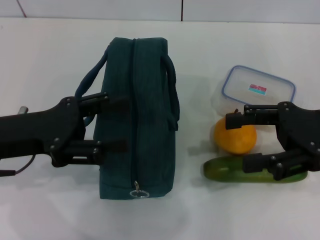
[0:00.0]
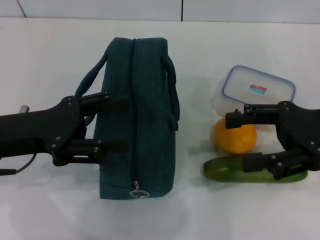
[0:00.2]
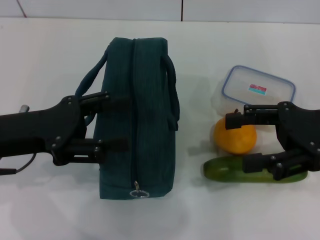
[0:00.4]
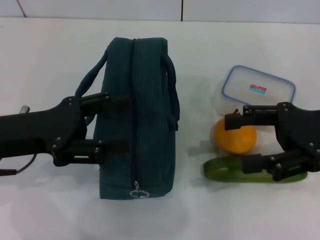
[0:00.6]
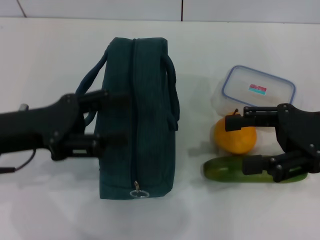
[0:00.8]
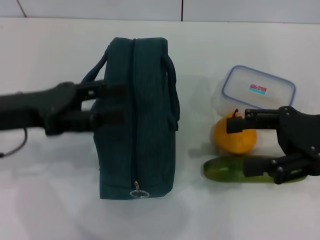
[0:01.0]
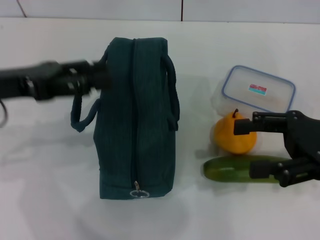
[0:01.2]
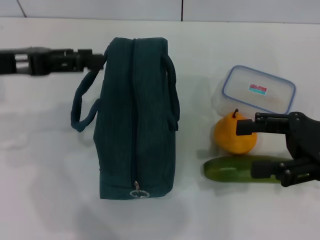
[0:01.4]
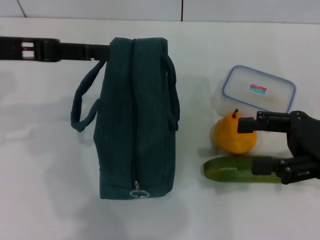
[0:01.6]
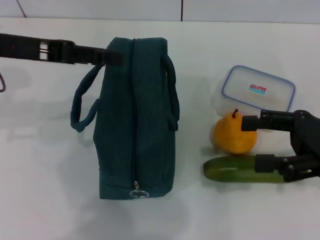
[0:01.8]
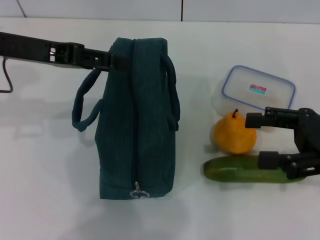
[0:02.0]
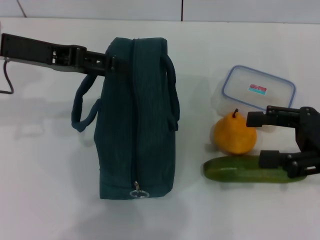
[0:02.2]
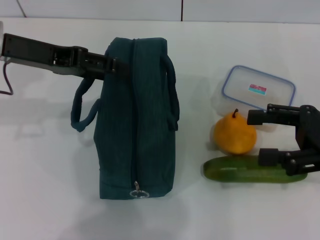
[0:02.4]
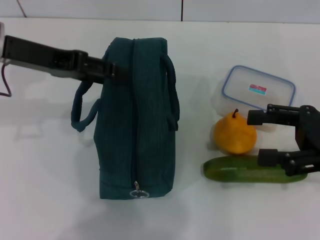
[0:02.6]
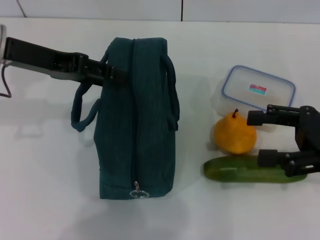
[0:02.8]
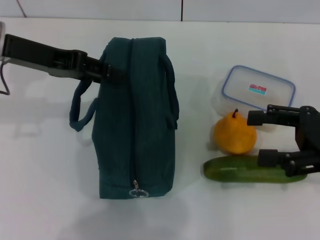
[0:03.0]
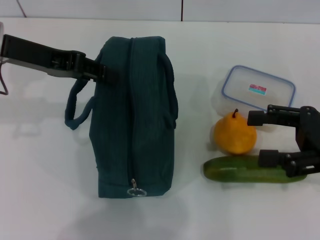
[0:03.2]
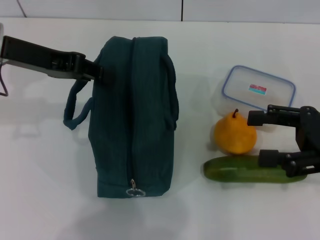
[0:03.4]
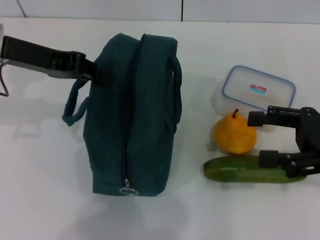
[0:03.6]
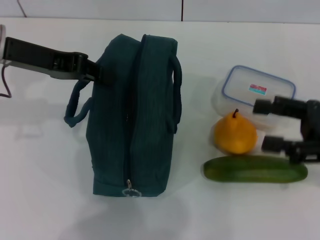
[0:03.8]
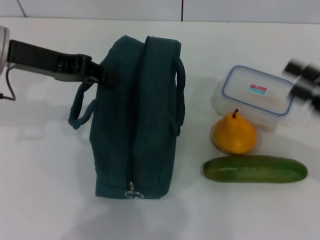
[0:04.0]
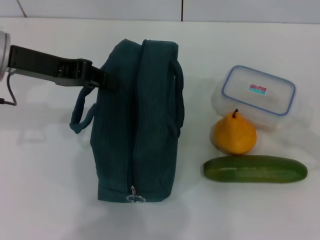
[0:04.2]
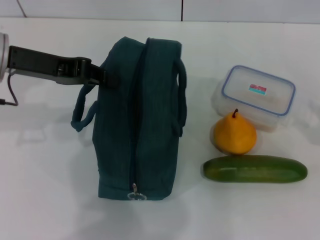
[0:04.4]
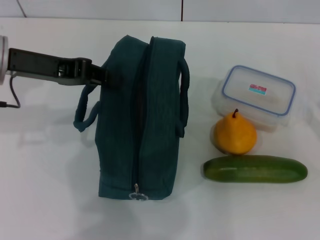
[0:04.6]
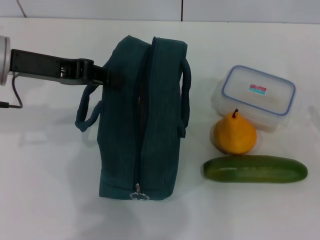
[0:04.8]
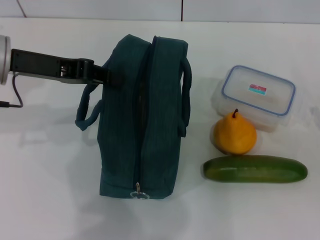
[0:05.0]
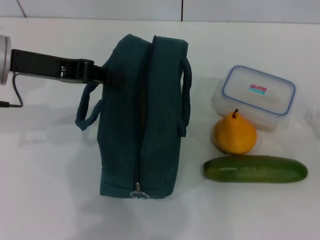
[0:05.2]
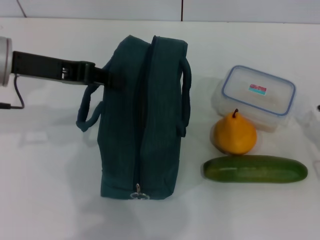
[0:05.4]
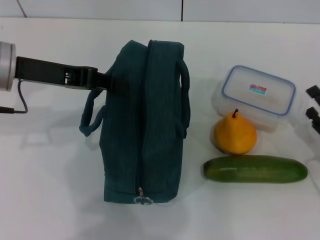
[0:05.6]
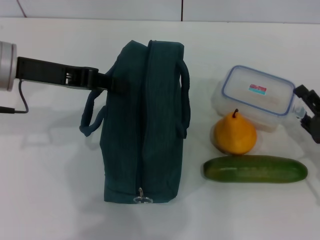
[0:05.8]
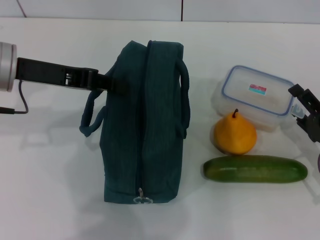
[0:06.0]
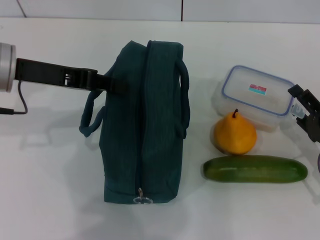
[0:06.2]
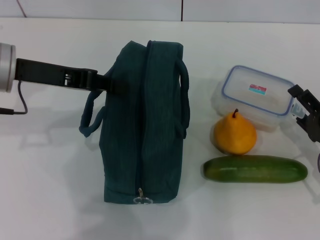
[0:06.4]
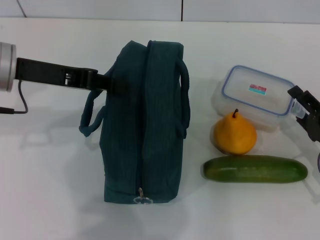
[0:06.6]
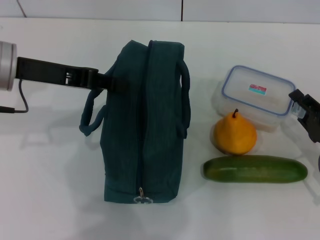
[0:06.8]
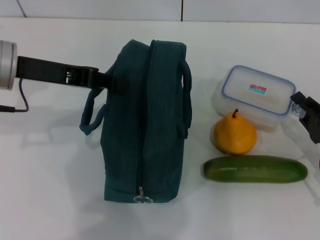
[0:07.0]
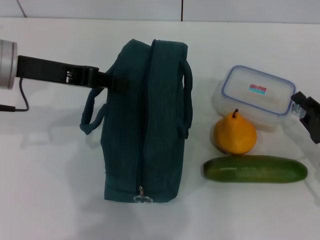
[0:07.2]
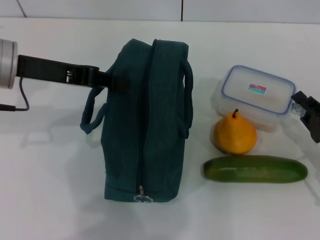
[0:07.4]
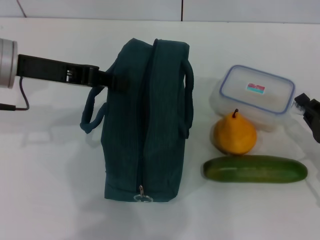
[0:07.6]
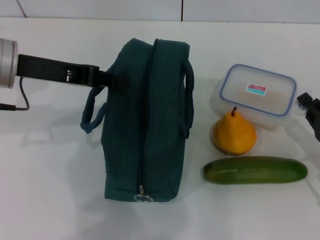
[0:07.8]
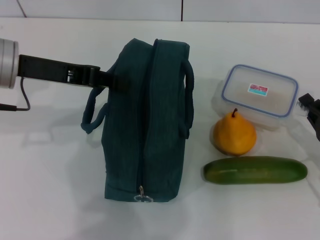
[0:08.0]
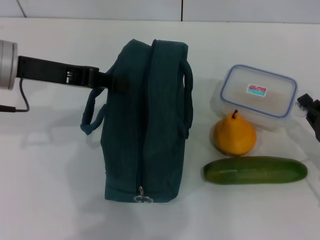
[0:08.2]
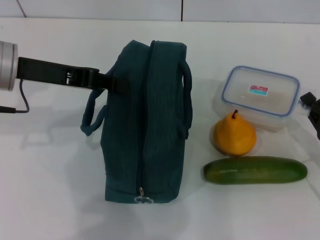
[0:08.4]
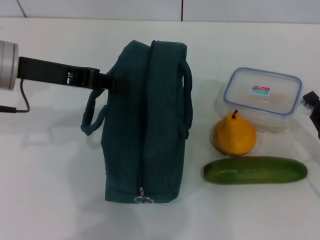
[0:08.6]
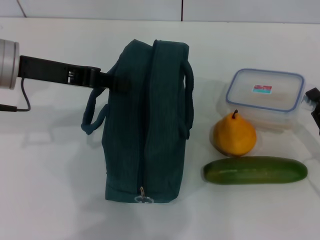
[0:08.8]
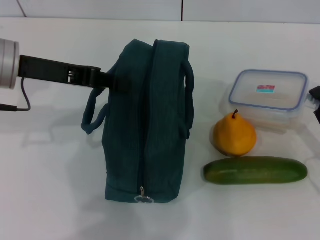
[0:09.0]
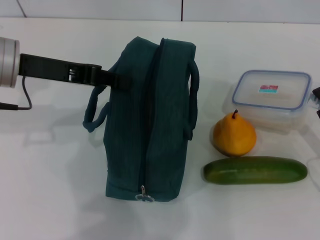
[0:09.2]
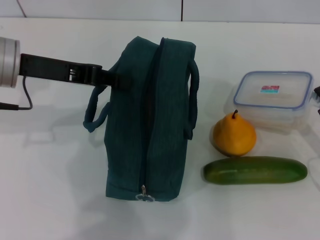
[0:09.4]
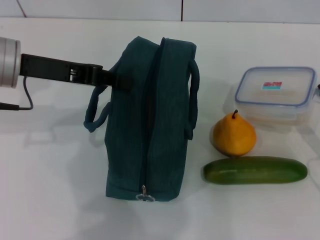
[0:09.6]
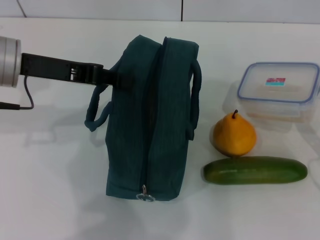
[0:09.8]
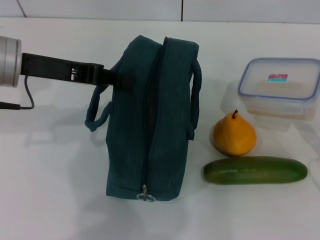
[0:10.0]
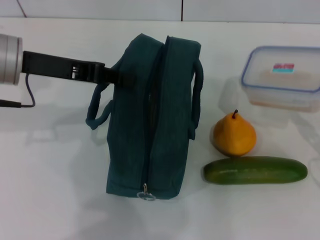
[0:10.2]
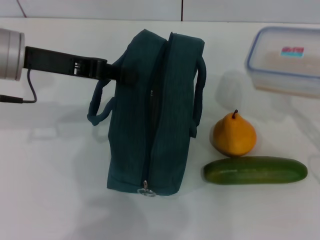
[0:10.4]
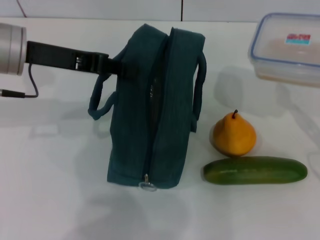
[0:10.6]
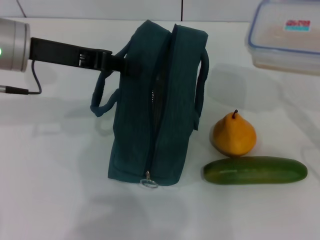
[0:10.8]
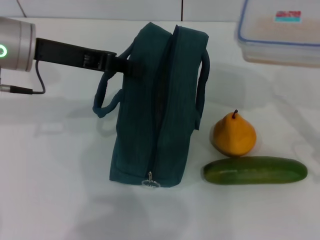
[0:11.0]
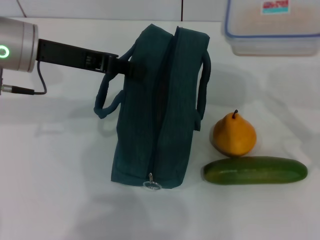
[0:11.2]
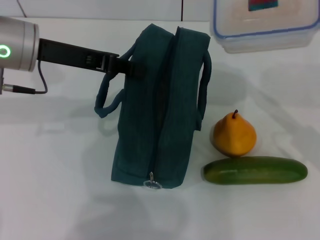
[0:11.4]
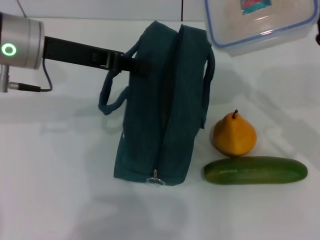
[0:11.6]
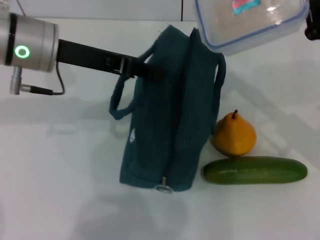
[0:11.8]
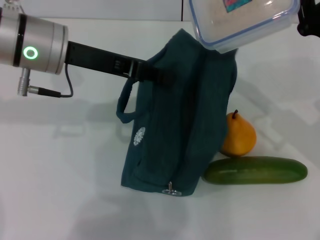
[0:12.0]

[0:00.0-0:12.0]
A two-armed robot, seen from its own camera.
Step, 0:00.0 to 0:04.4: Hold the lunch bag with your left hand.
Step, 0:04.8 to 0:08.4: Pick up the lunch box with your right hand.
0:00.0 to 0:01.6: The left gripper moves upward and forward, about 10 cm.
0:03.0 to 0:04.4: The left gripper closes its fingers, while the right gripper heads to the right, downward and backward, covering roughly 10 cm.
0:04.4 to 0:06.0: The right gripper shifts approximately 10 cm downward and to the left.
0:06.0 to 0:07.6: The right gripper closes its fingers.
0:07.6 to 0:09.0: The grippers stay close to where they were, moving slightly.
0:09.0 to 0:10.4: The grippers make only small movements.
0:10.4 to 0:12.0: The left gripper changes place by approximately 5 cm. Meanwhile the right gripper is displaced forward, to the left and upward by roughly 15 cm.

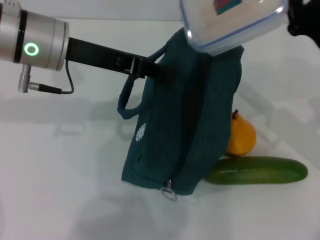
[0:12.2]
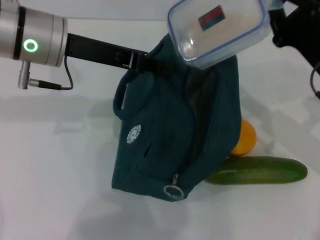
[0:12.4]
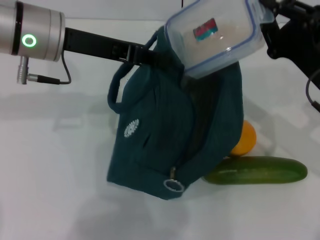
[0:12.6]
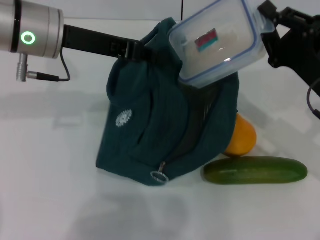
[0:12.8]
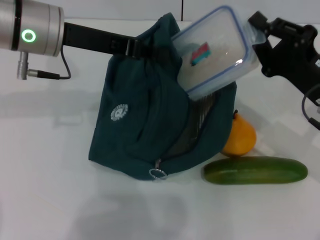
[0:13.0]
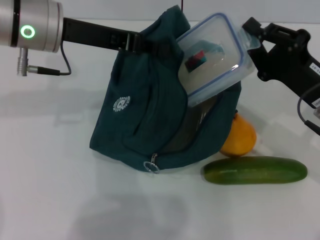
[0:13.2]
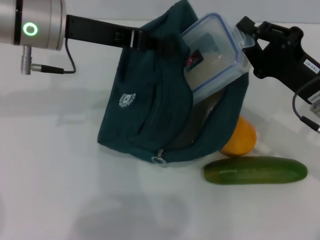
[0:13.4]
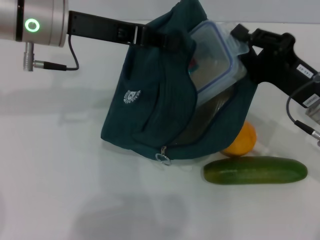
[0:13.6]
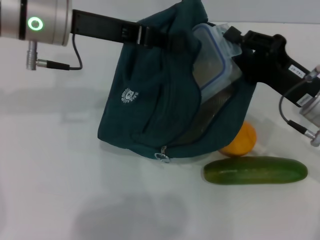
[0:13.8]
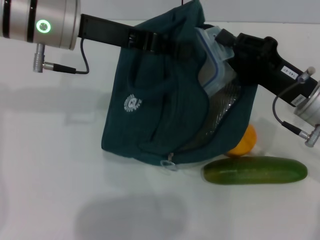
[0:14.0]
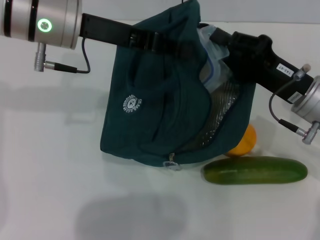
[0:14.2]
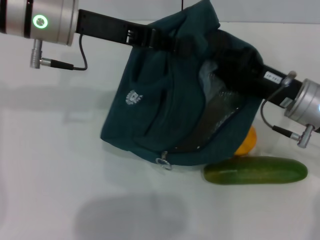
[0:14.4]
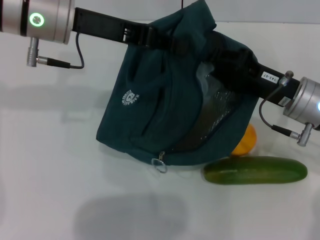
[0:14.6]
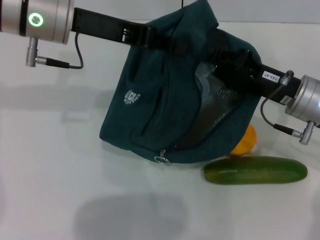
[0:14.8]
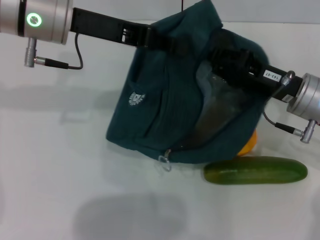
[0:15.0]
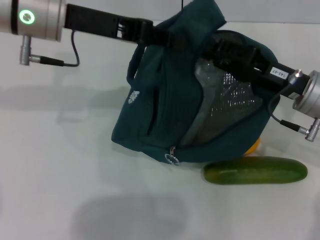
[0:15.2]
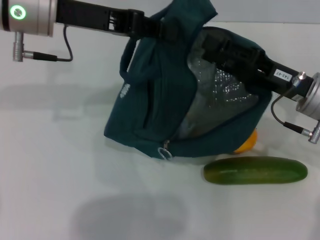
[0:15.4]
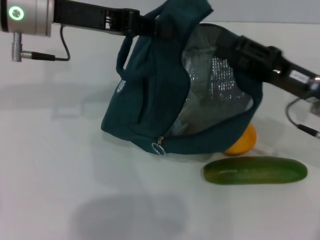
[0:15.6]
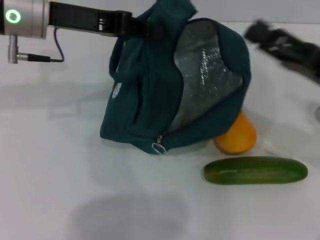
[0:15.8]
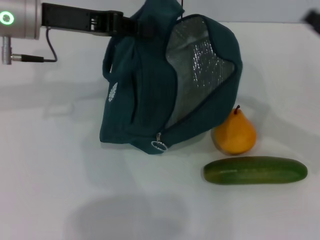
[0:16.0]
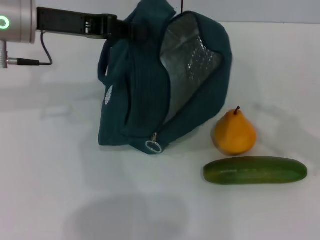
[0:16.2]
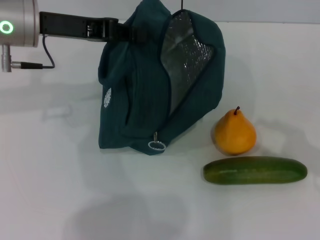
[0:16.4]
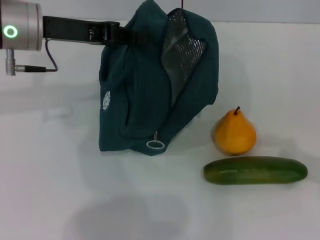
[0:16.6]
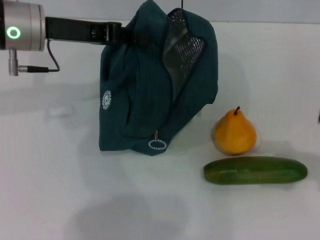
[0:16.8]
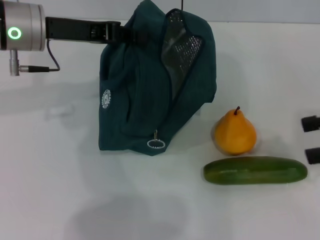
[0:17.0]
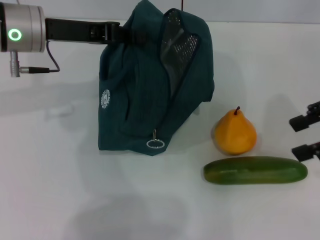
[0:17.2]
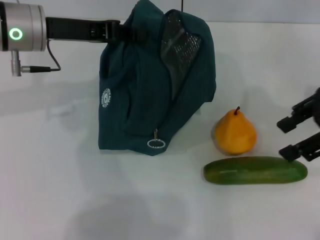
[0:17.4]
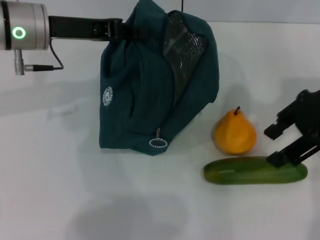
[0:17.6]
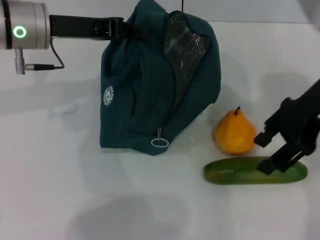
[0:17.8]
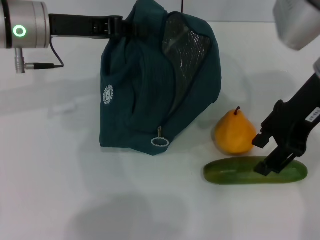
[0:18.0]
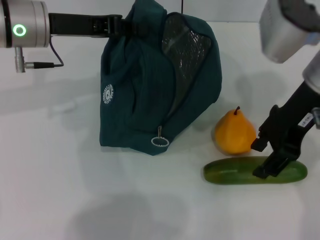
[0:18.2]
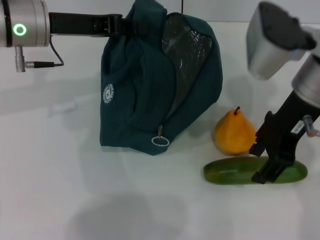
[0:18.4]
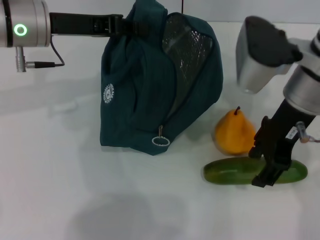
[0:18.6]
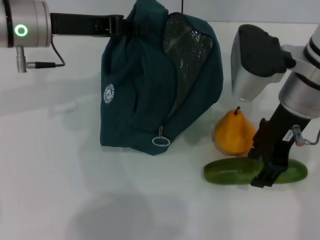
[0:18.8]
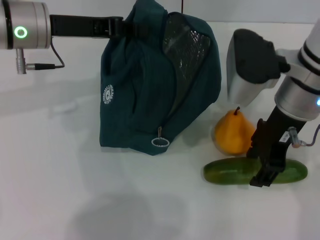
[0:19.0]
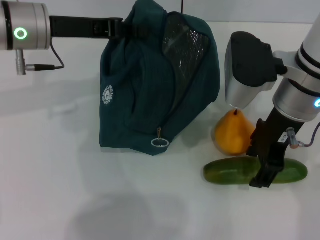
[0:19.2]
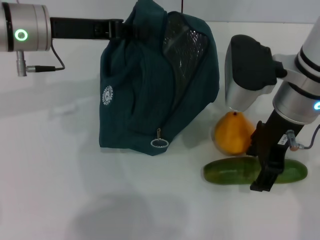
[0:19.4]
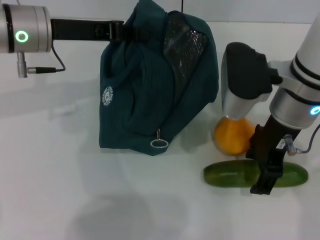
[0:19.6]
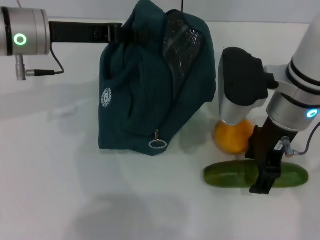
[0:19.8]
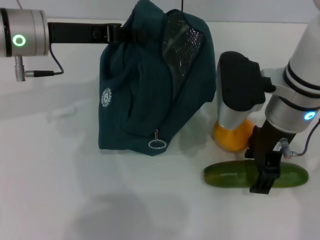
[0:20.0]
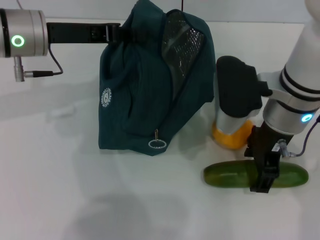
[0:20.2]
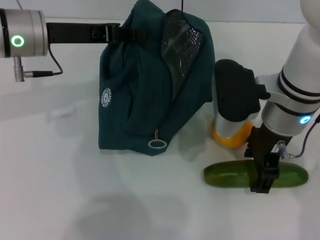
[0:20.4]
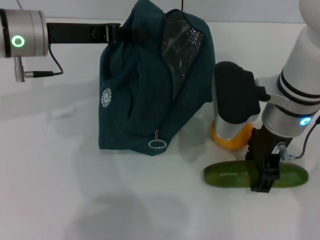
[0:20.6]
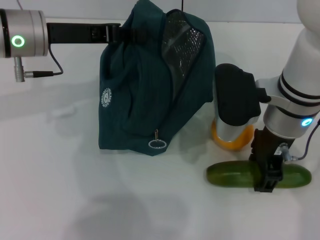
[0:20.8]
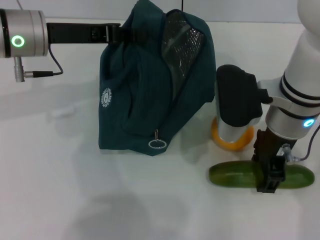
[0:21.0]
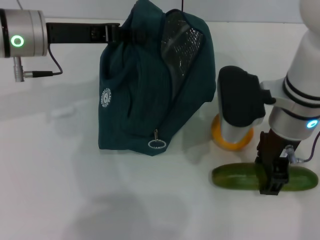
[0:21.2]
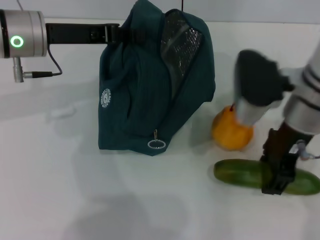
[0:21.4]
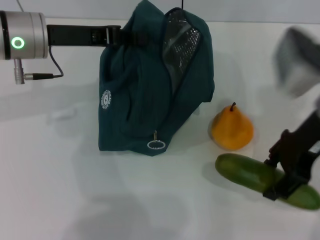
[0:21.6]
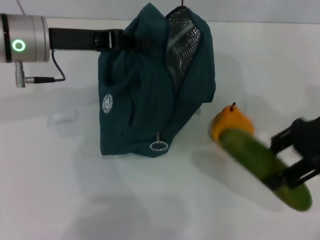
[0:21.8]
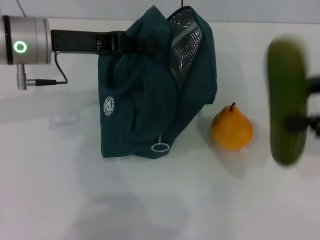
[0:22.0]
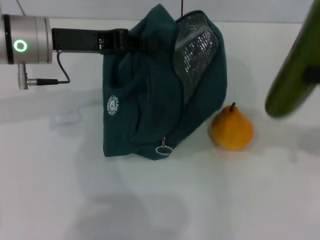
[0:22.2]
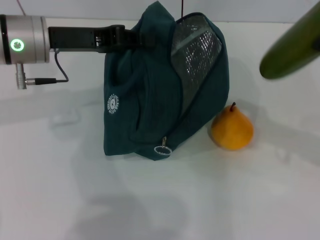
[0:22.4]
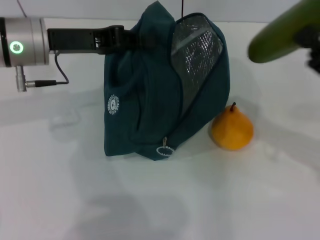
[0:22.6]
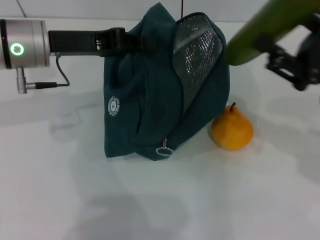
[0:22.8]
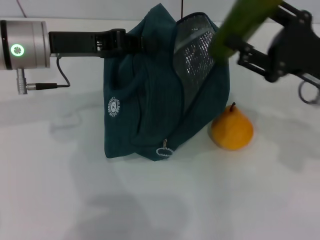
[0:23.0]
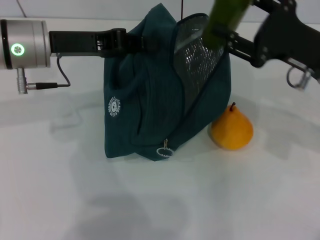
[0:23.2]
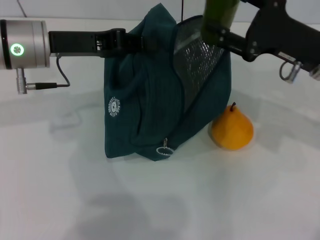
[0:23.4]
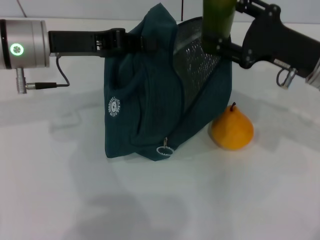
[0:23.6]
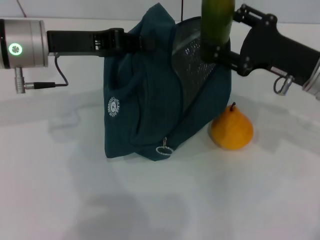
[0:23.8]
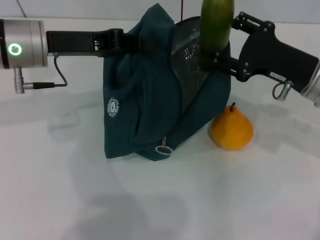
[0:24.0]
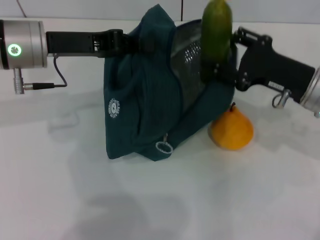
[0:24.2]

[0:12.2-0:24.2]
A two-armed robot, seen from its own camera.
Step, 0:12.2 to 0:15.2: Place the lunch box into the lunch bag with your right hand.
Step, 0:15.6 to 0:20.8: Pick up the cucumber with your right hand.
0:15.2 to 0:16.6: The right gripper heads to the right and backward, covering roughly 20 cm, and opens. The left gripper moves about 5 cm.
0:16.6 to 0:18.2: The right gripper moves to the left and forward, about 20 cm.
0:18.2 to 0:19.8: The right gripper shifts approximately 5 cm downward.
0:19.8 to 0:21.2: The grippers stay close to where they were, moving slightly.
0:21.2 to 0:22.6: The right gripper is displaced to the right by roughly 15 cm.
0:22.6 to 0:24.2: The right gripper moves forward and to the left, some 10 cm.
